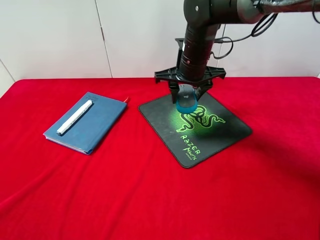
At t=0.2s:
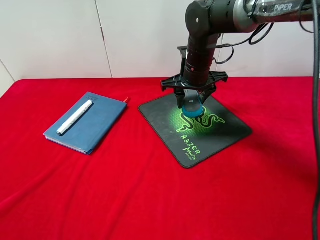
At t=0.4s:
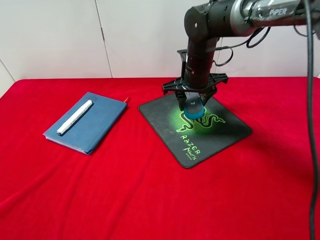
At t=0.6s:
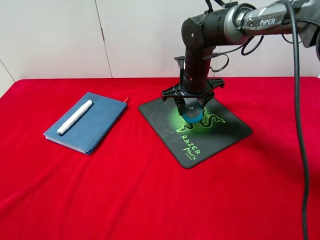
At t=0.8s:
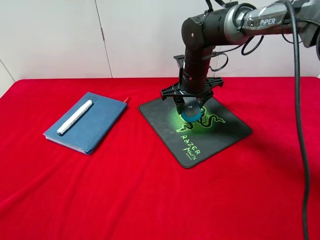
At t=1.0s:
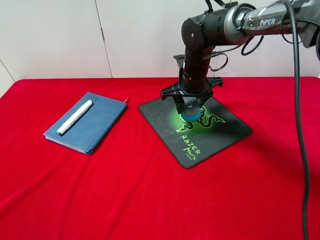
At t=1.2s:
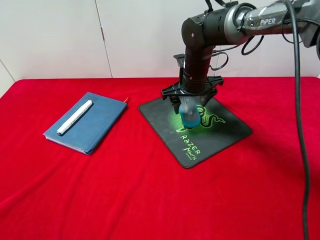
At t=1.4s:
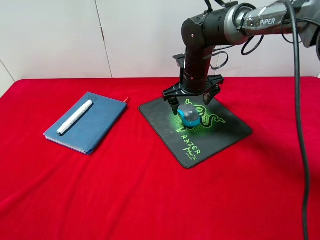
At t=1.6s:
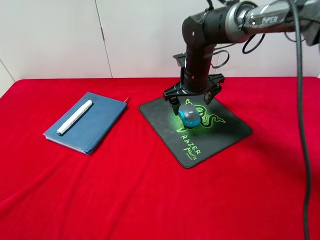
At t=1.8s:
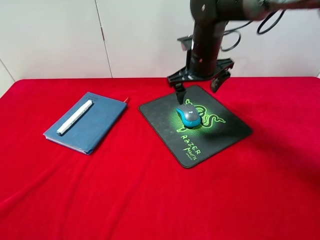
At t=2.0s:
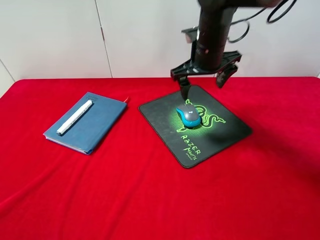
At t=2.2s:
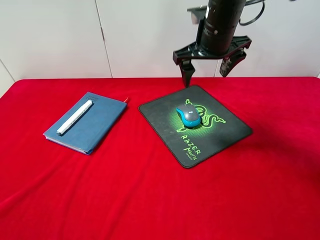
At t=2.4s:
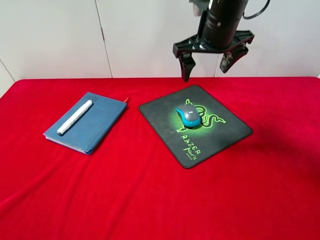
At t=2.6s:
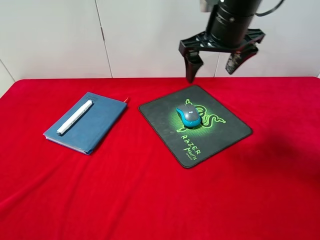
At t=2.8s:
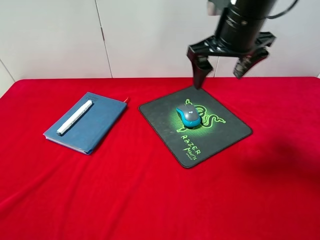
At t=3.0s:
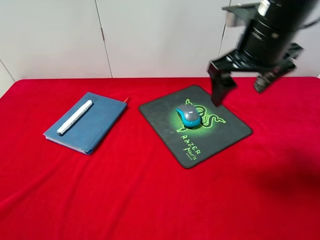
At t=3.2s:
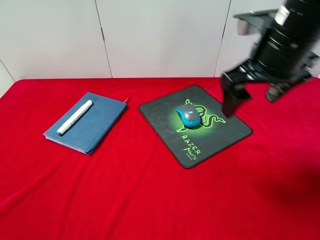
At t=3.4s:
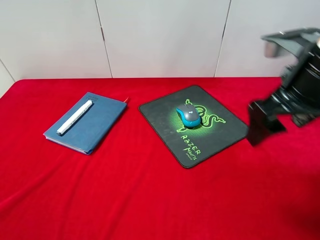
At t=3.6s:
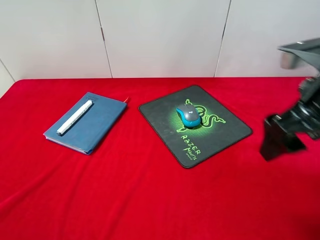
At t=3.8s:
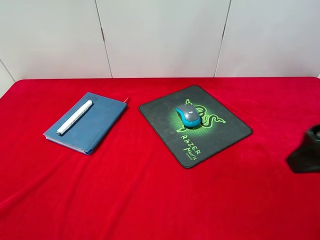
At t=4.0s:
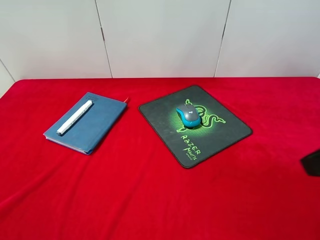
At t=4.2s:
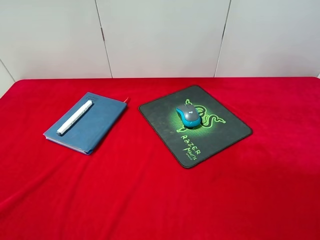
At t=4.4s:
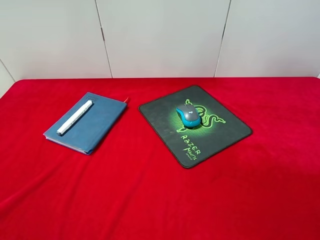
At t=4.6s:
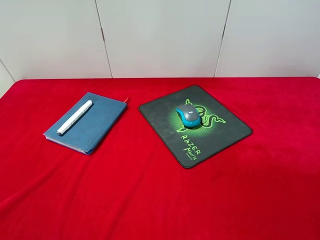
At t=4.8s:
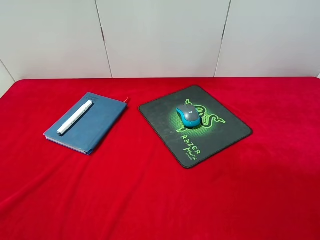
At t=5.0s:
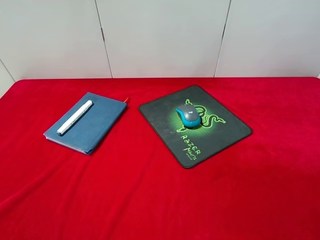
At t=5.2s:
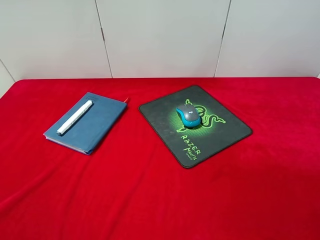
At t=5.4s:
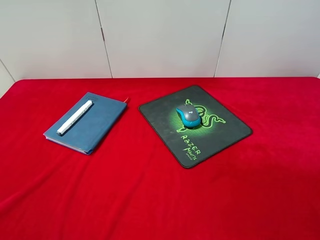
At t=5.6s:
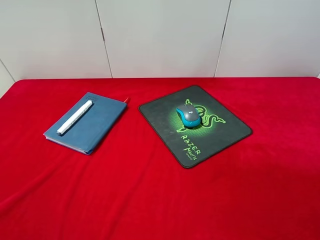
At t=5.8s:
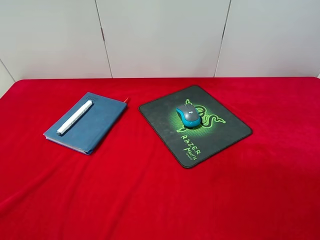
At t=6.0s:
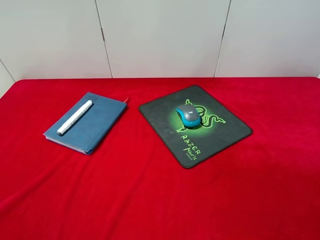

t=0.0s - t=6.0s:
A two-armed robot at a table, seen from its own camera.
Step, t=0.0s - t=1.4s: Place the mouse on the mouse pad with right gripper.
t=0.0s - t=1.6s: The right gripper opens.
t=1.6s - t=3.0s: The right gripper travels backward, upward and to the right by about 20 cm.
t=3.0s - t=4.4s: The right gripper heads backward and to the right, covering about 25 cm.
